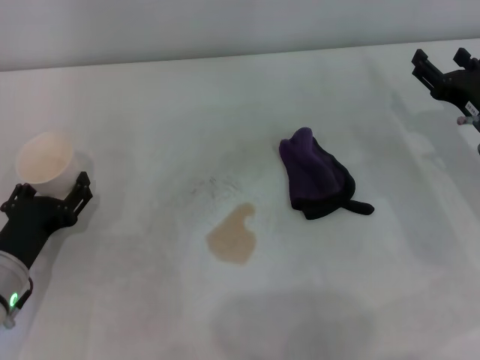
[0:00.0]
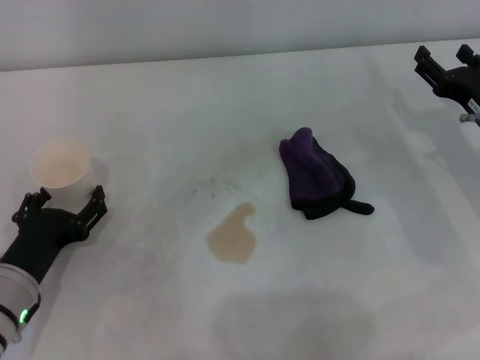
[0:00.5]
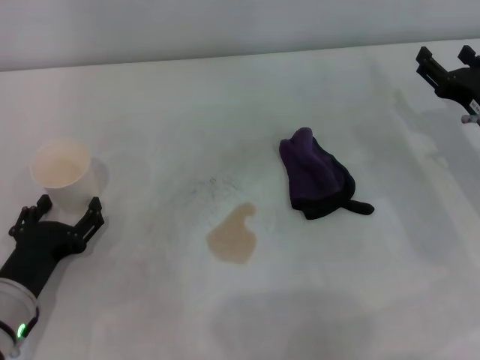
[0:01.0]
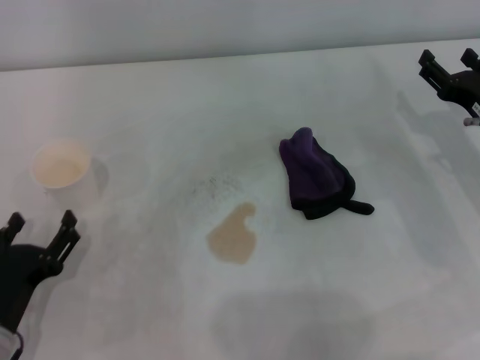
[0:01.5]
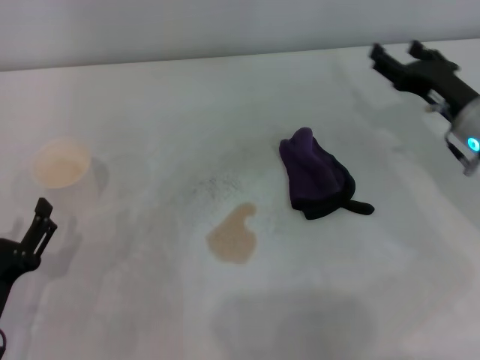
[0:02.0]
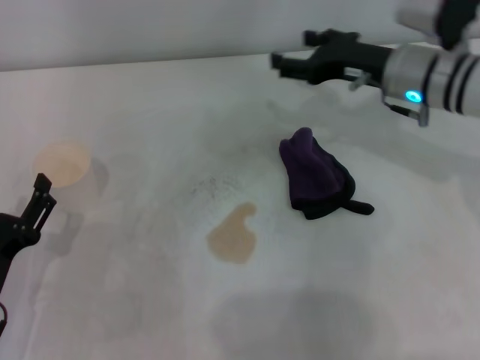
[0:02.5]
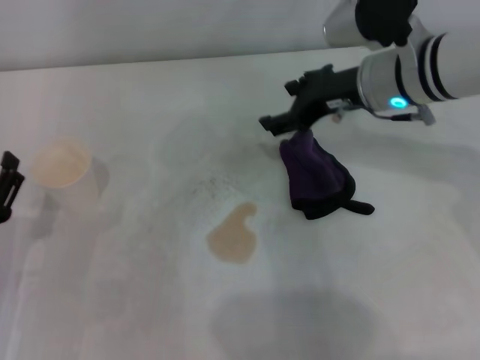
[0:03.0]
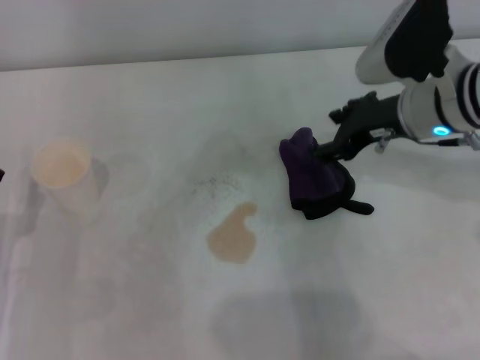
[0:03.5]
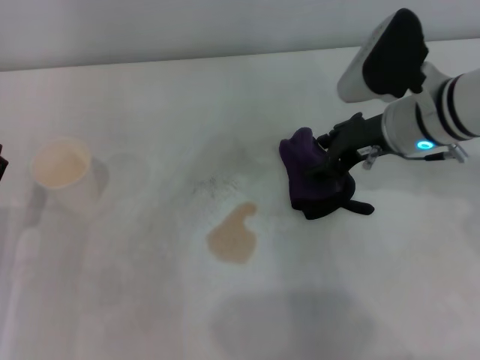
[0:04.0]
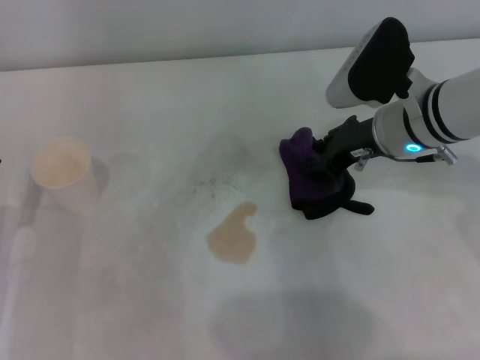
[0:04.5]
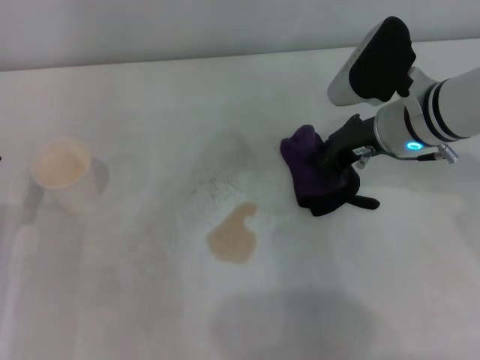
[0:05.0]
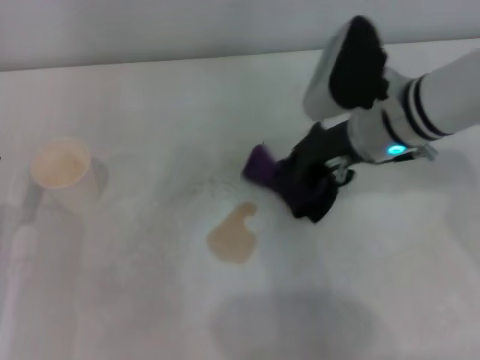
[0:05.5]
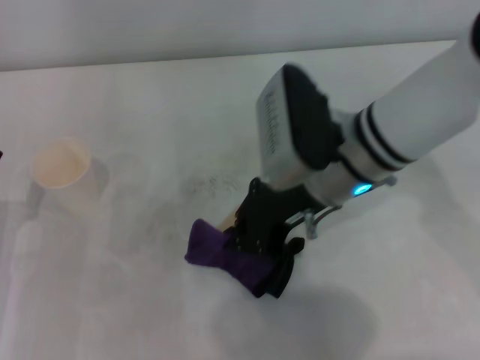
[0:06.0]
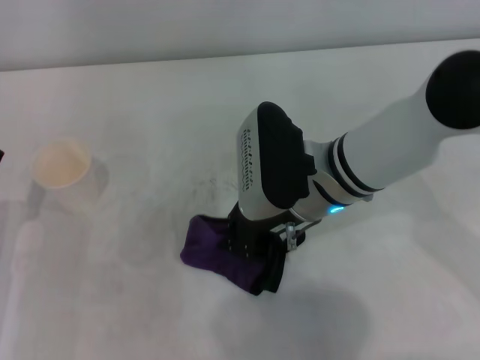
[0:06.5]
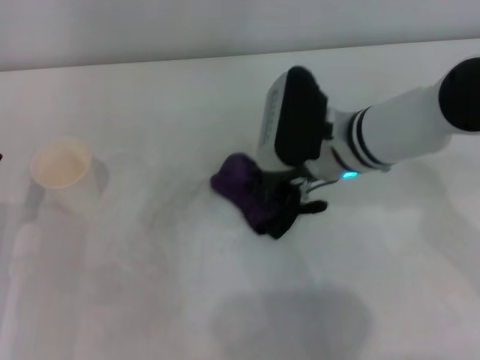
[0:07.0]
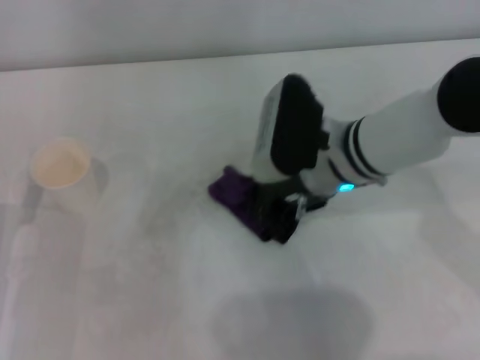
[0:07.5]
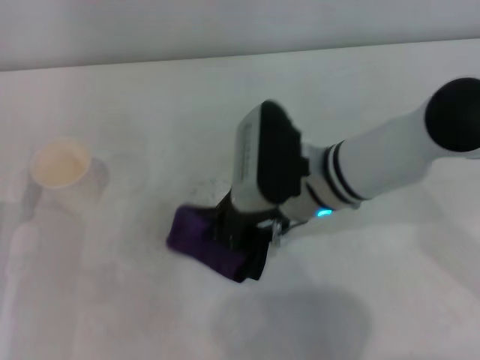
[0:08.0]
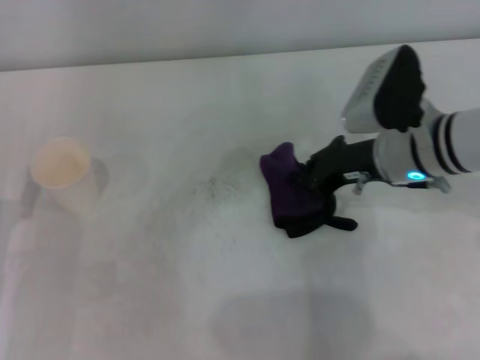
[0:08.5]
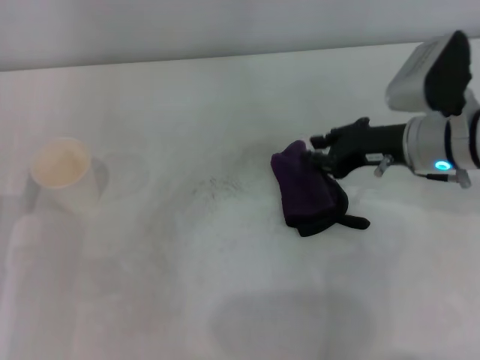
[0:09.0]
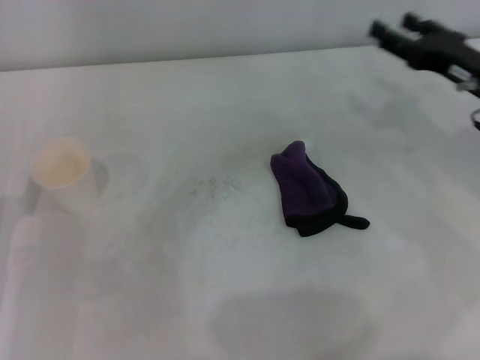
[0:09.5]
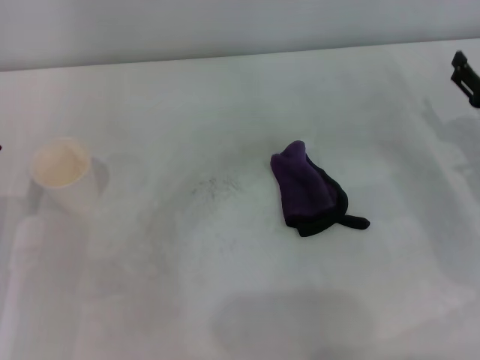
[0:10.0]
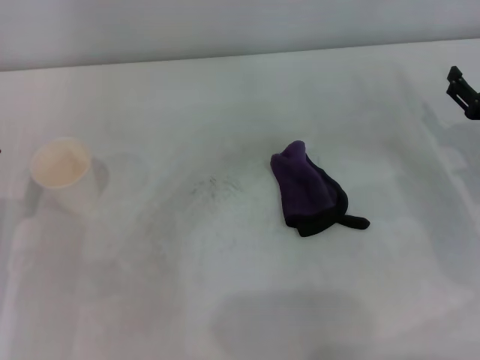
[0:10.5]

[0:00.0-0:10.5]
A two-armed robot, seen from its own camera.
Step, 0:01.0 to 0:05.0: Grasp the rag with the right gripper.
Step, 0:05.5 to 0:08.0: Wipe the stains off the table with the right gripper.
0:00.0 to 0:02.0: The left gripper moves backward, approximately 10 cm.
0:02.0 to 0:04.0: The left gripper heads forward, covering roughly 5 cm, while the right gripper travels to the left and upward by roughly 10 cm.
0:04.0 to 0:06.5: The right gripper moves to the left, about 10 cm, and closes up.
0:06.5 to 0:08.5: The right gripper travels to the right by approximately 10 cm.
0:08.5 to 0:10.5: The right gripper goes approximately 15 cm to the right, and opens its fingers.
